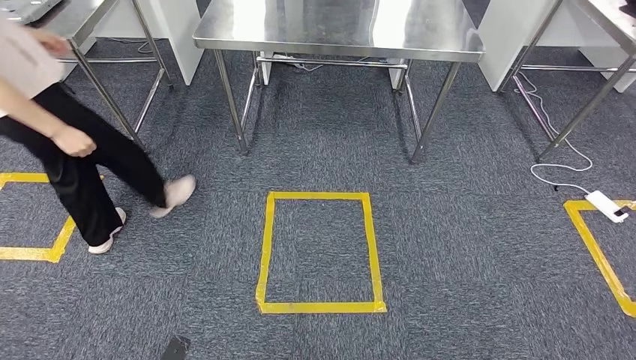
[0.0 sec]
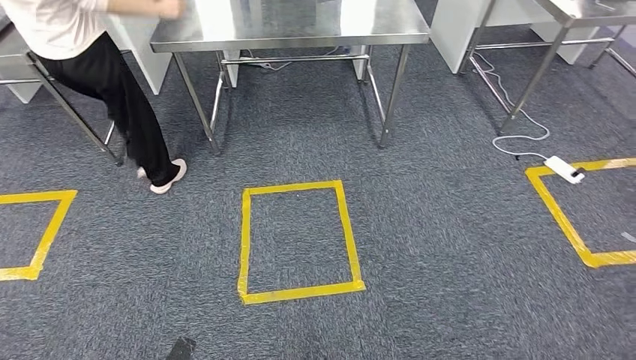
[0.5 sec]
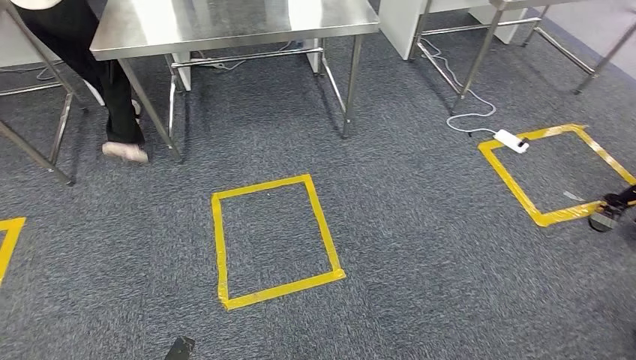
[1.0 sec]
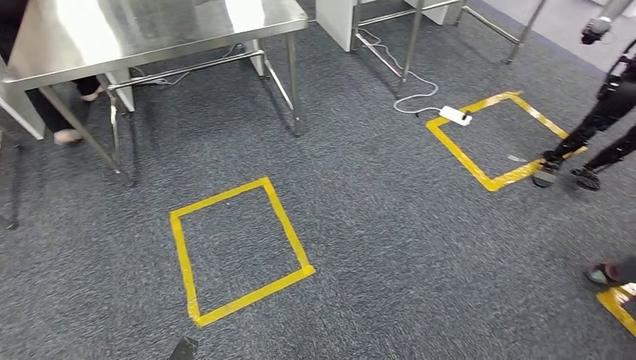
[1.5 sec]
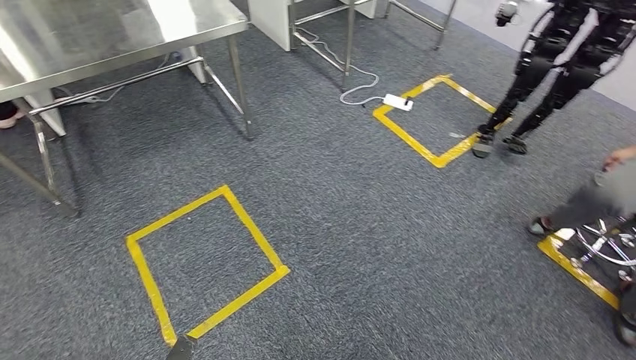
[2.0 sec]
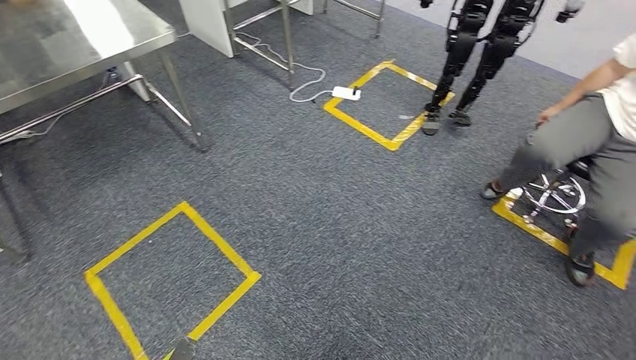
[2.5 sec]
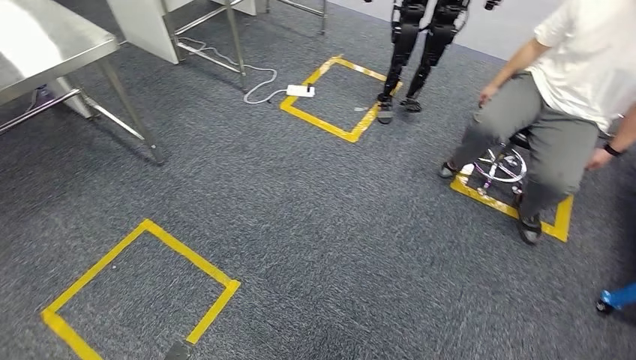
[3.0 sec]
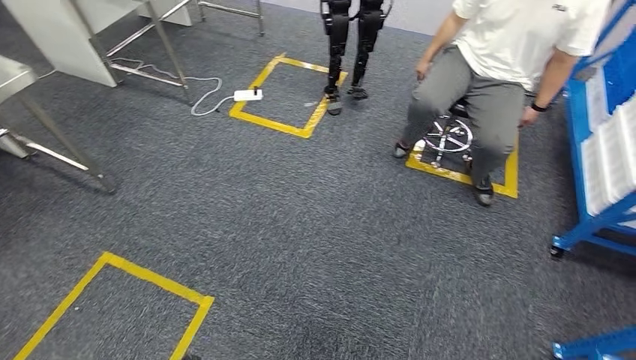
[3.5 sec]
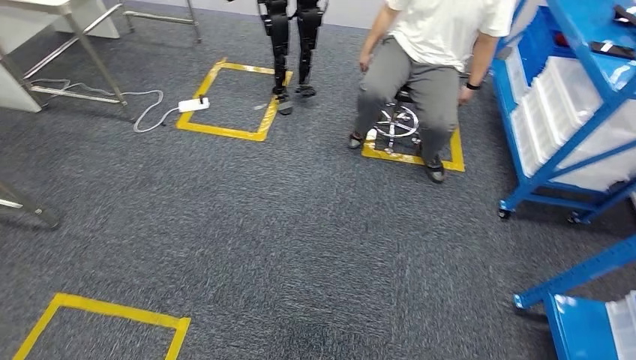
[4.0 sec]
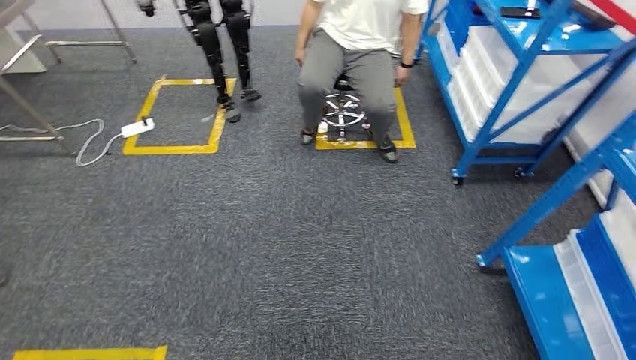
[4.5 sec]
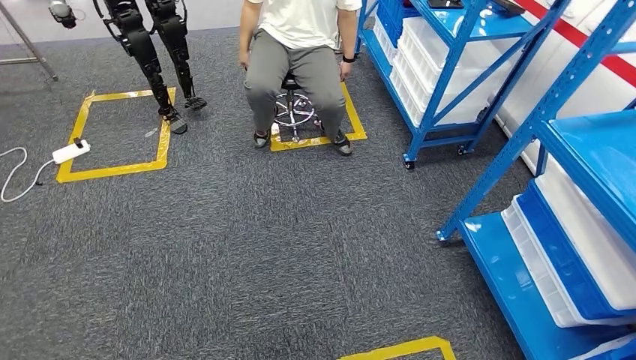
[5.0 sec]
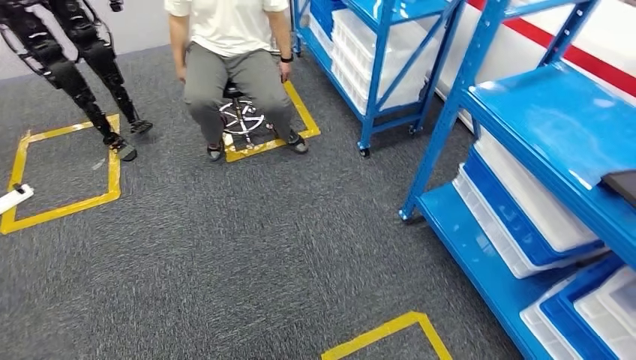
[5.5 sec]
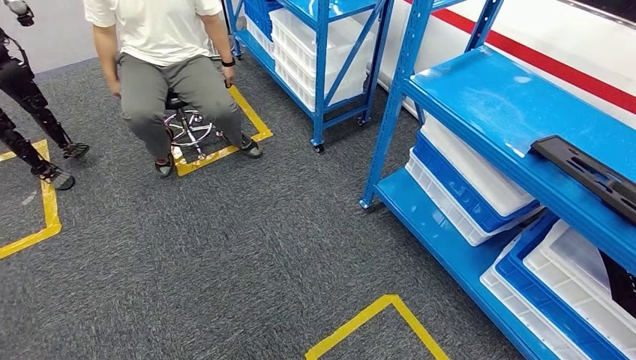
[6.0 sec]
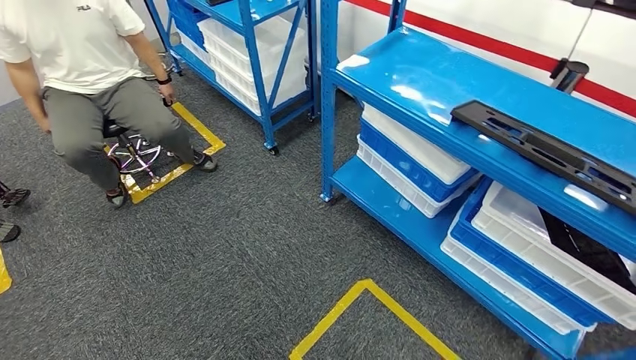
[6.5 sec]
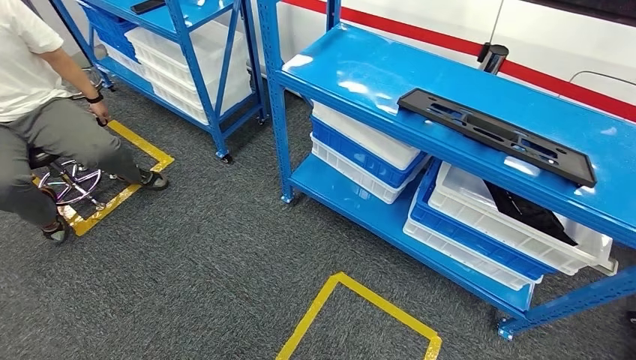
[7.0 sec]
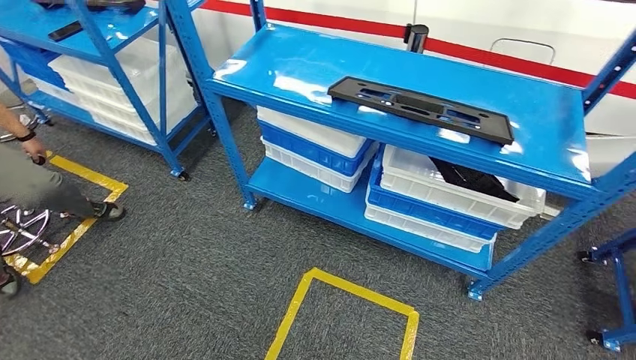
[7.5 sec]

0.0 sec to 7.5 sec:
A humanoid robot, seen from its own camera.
Step, 0.0 sec to 7.5 sec: Return to the initial position at the shelf.
